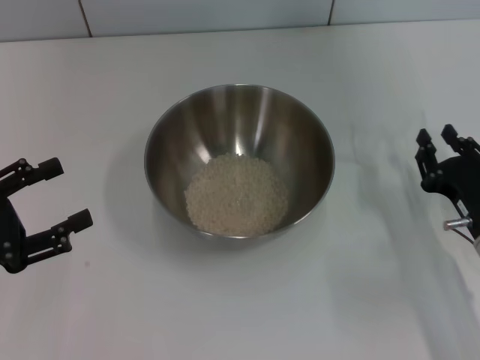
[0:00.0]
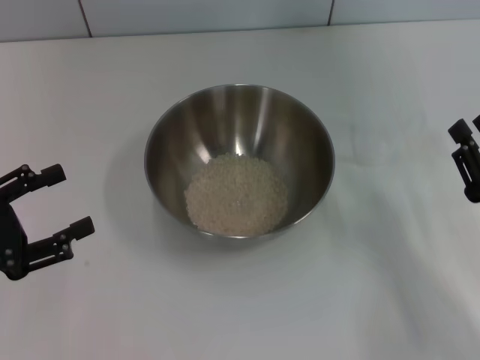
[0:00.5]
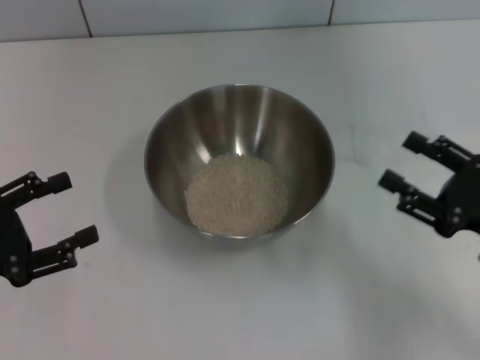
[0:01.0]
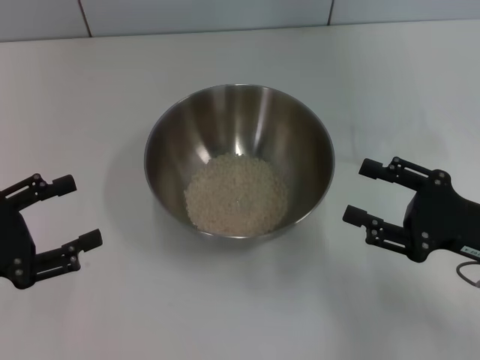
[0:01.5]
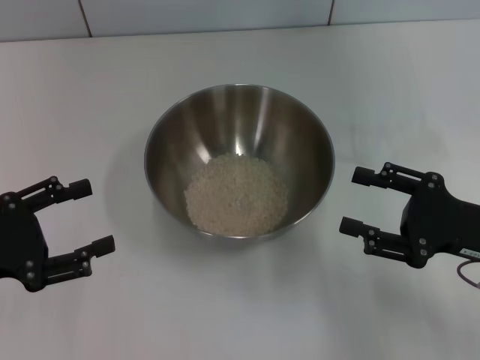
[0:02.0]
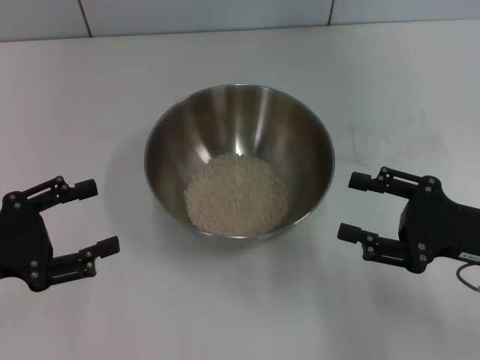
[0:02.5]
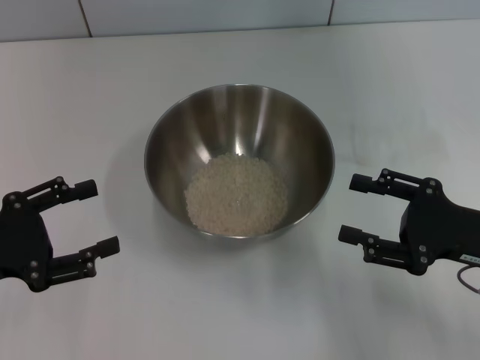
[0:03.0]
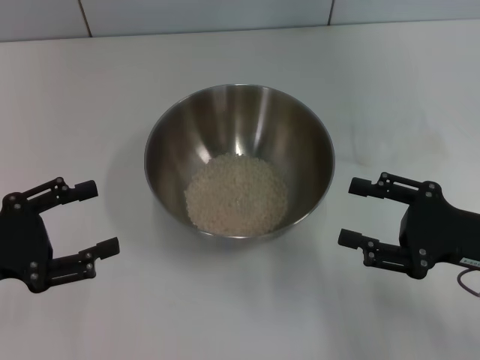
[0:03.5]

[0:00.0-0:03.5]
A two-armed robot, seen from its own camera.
Task of the whole recording: Place the bowl in the middle of the table with one hand and pour the rice from the grain cup into it with the other hand.
0:00.0 to 0:02.0: The right gripper travels upward by some 5 cm, and opens.
0:02.0 to 0:03.5: Both grippers stay put.
